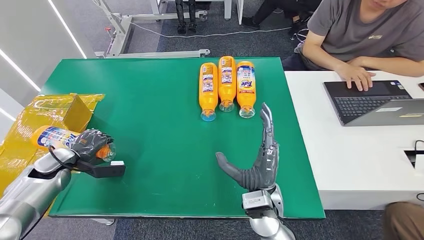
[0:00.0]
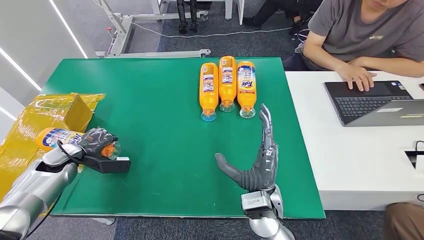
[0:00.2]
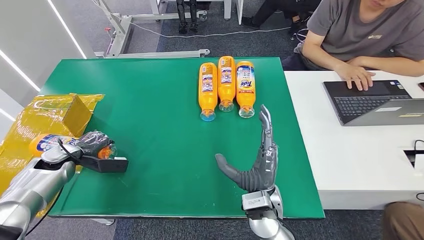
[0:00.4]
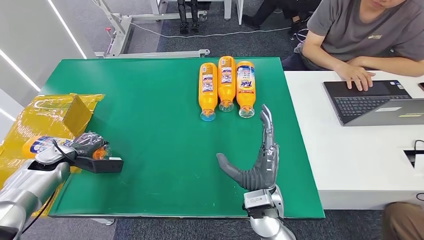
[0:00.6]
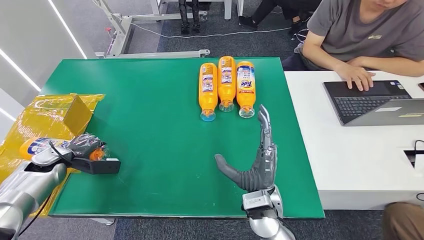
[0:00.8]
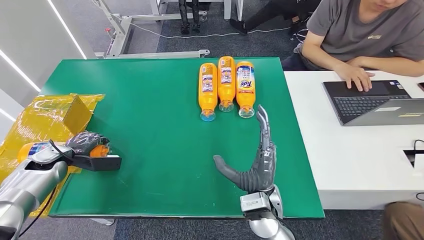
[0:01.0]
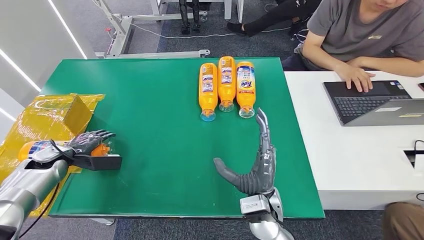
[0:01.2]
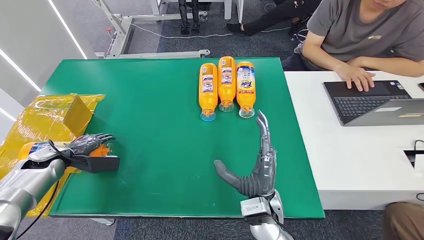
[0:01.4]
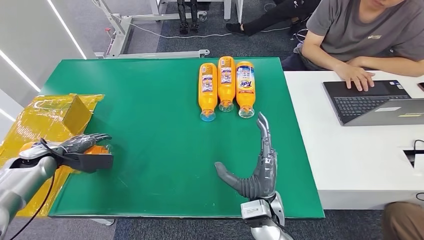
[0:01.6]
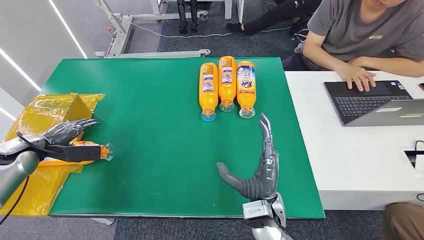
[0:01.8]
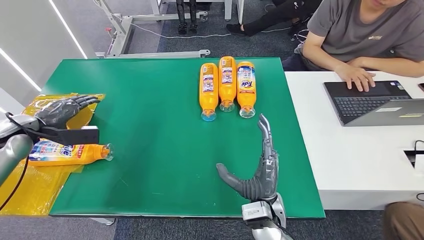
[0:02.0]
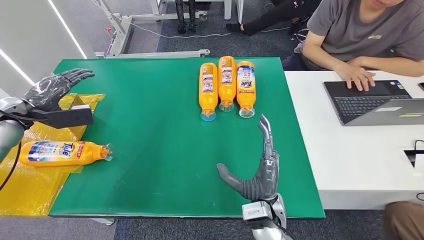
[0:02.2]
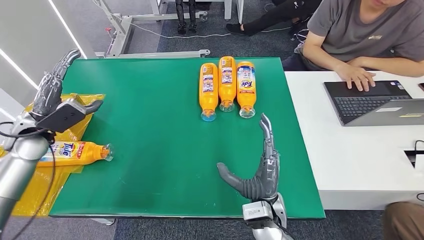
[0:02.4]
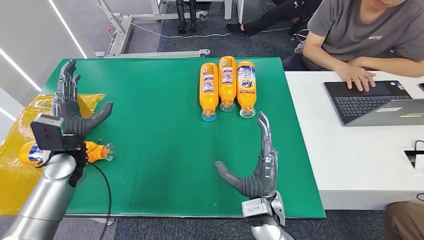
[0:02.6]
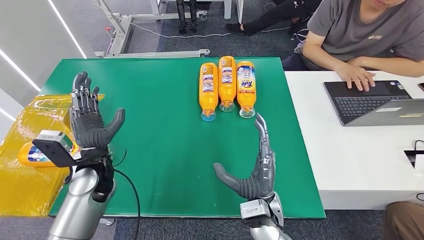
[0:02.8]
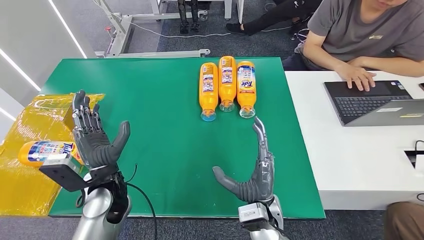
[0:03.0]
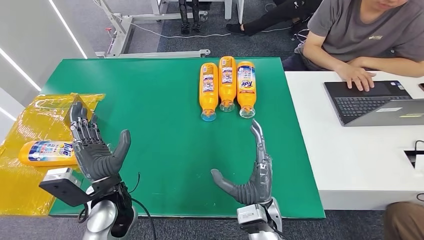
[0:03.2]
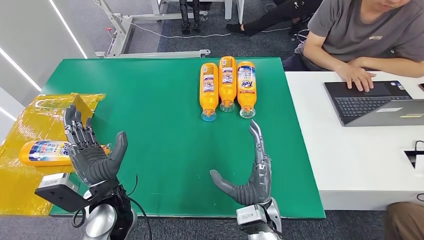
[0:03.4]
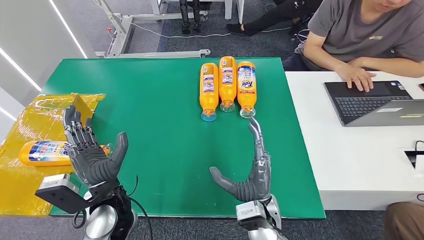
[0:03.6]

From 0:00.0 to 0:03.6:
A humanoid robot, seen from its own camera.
Step, from 0:00.0 to 0:03.6: Turn the bottle to the front side.
From 0:00.0 to 0:01.8: The left hand travels upward and to the left by some 10 cm.
From 0:01.8 to 0:03.6: The left hand moves to the right and backward, approximately 35 cm.

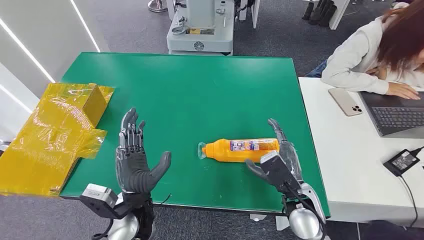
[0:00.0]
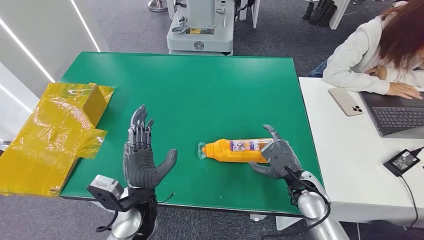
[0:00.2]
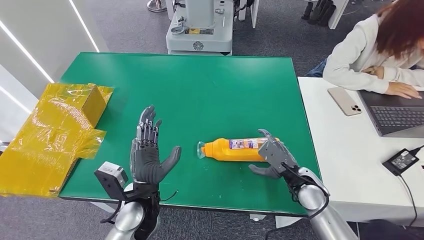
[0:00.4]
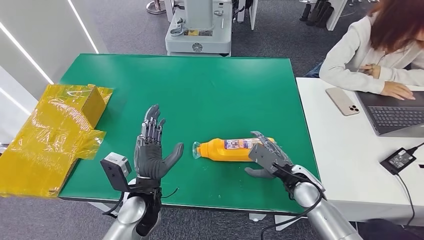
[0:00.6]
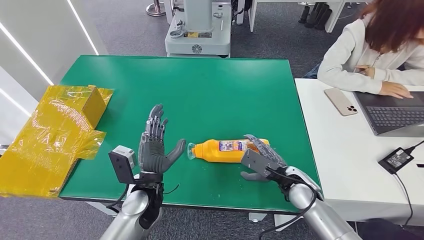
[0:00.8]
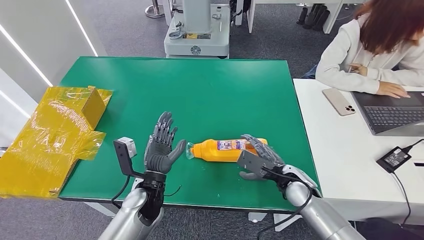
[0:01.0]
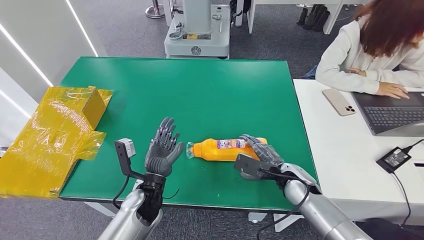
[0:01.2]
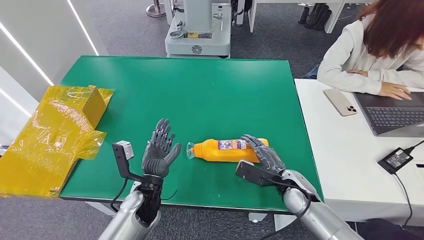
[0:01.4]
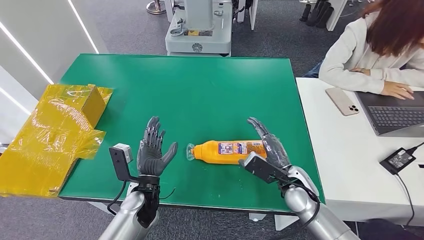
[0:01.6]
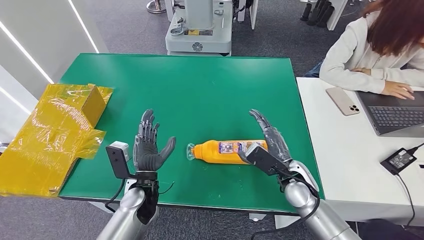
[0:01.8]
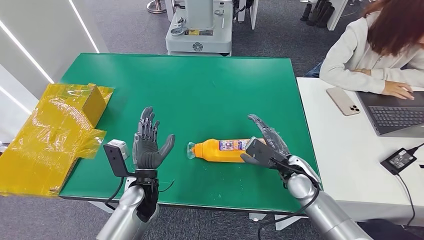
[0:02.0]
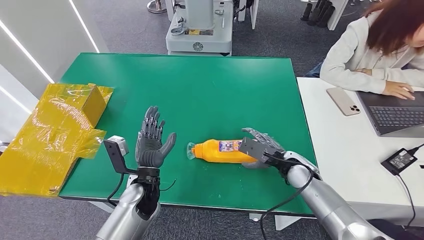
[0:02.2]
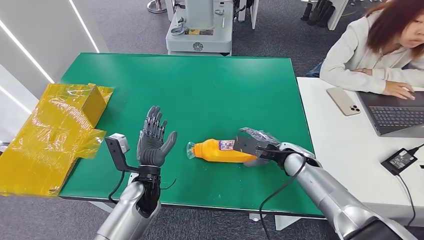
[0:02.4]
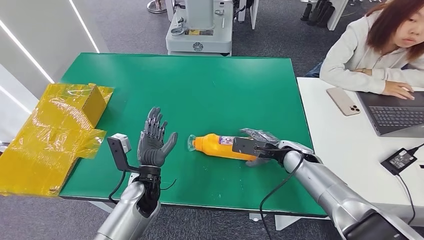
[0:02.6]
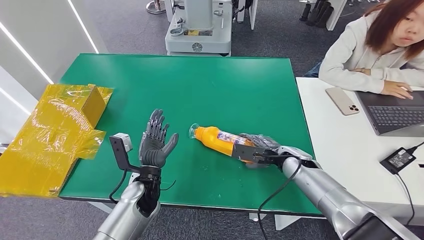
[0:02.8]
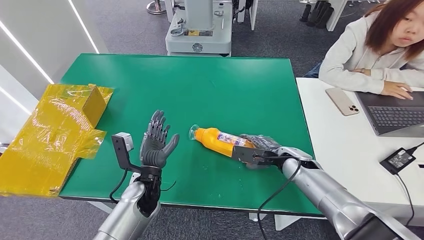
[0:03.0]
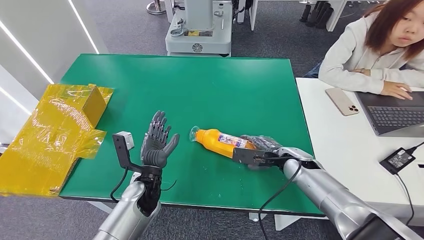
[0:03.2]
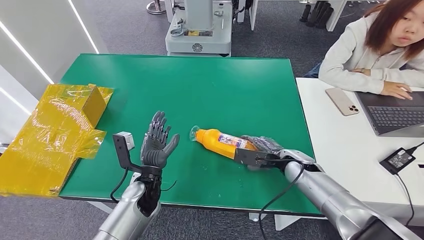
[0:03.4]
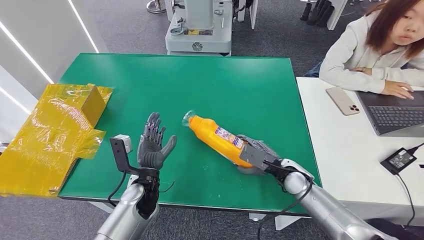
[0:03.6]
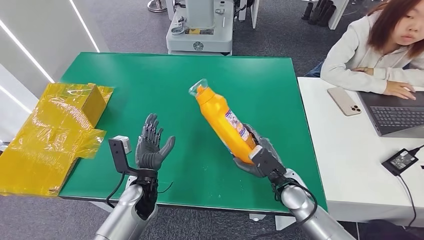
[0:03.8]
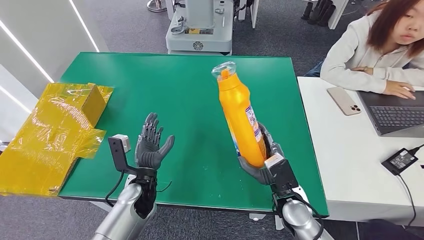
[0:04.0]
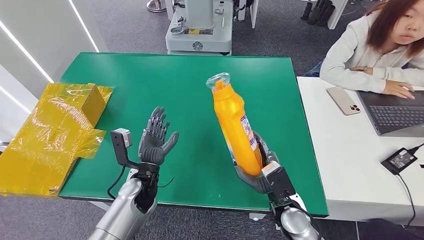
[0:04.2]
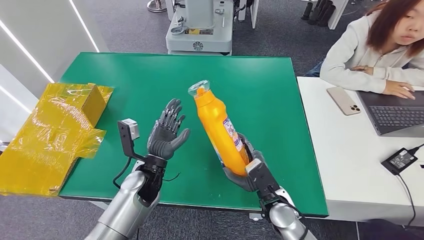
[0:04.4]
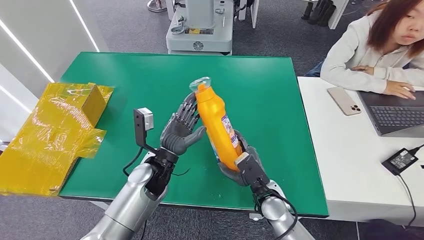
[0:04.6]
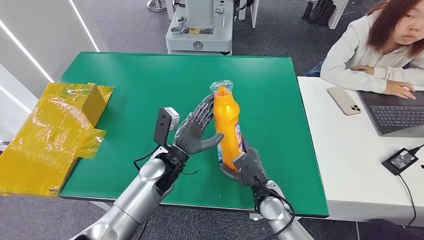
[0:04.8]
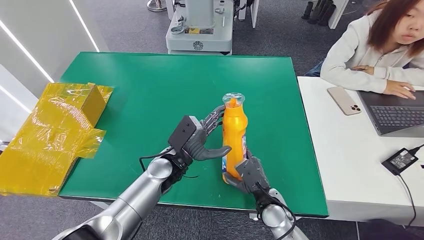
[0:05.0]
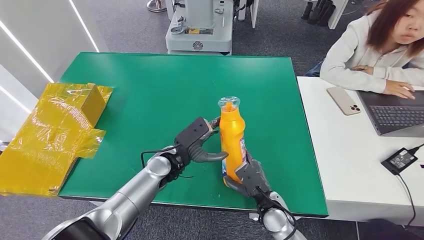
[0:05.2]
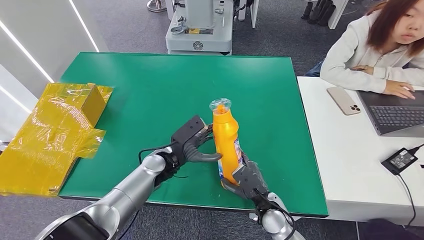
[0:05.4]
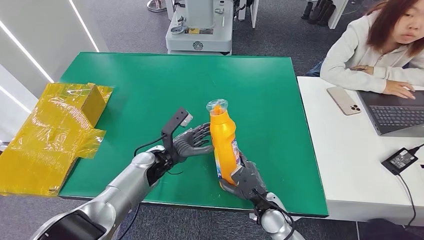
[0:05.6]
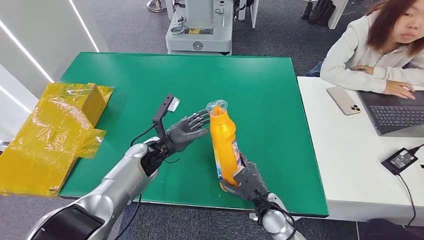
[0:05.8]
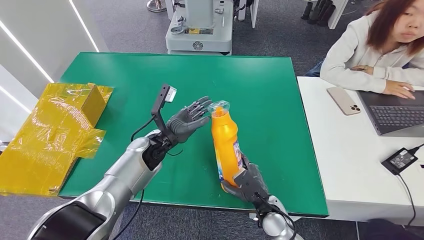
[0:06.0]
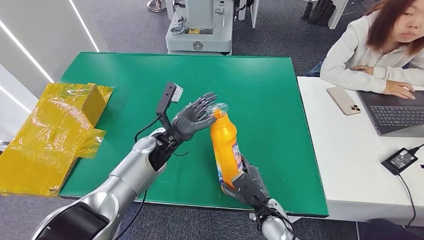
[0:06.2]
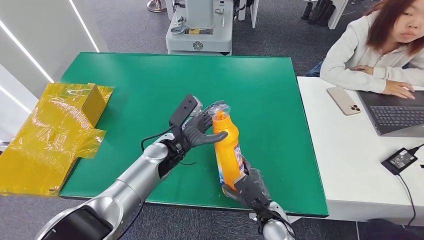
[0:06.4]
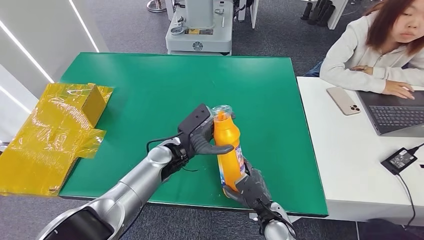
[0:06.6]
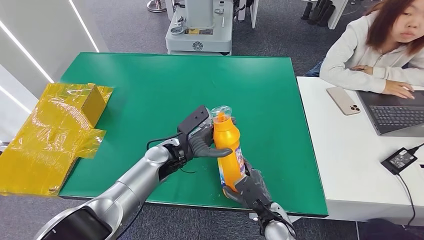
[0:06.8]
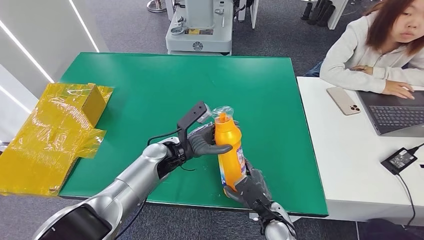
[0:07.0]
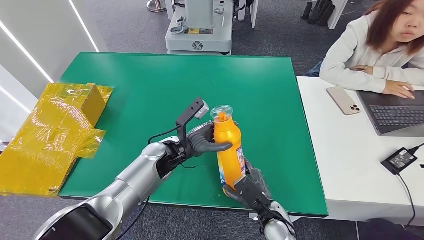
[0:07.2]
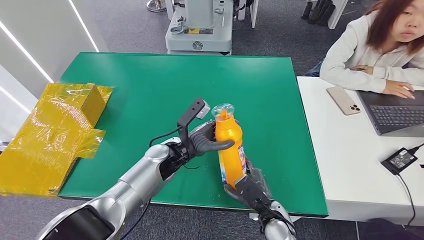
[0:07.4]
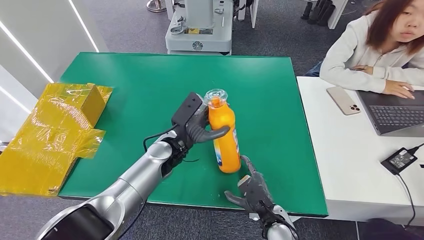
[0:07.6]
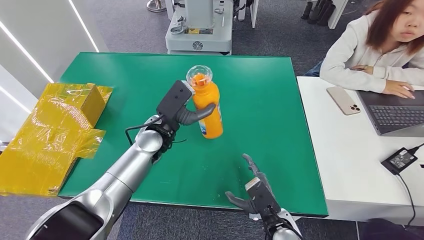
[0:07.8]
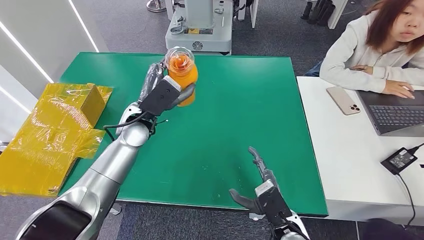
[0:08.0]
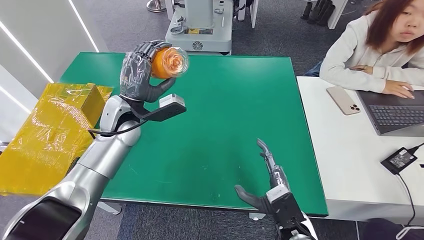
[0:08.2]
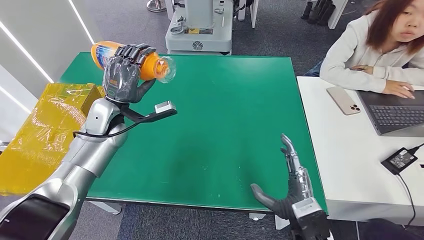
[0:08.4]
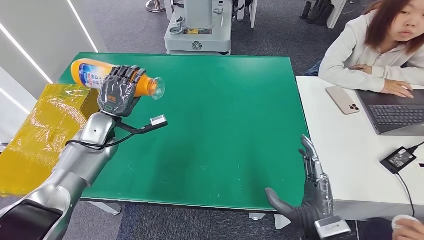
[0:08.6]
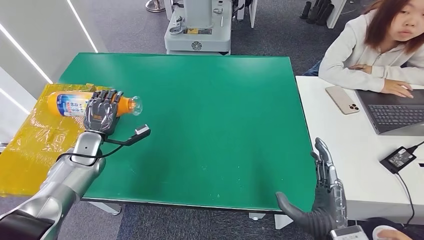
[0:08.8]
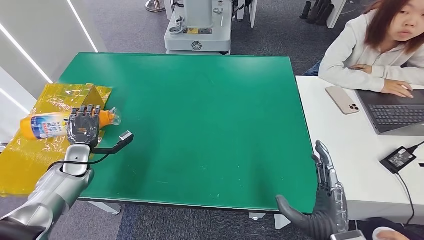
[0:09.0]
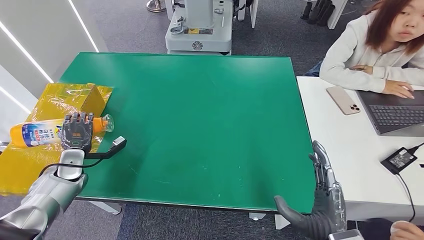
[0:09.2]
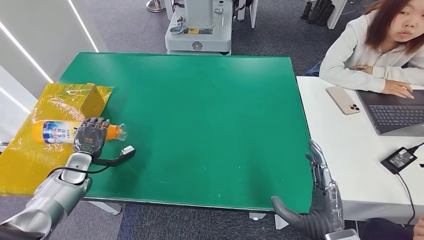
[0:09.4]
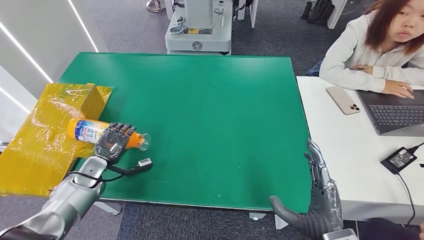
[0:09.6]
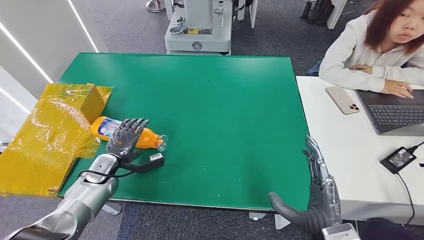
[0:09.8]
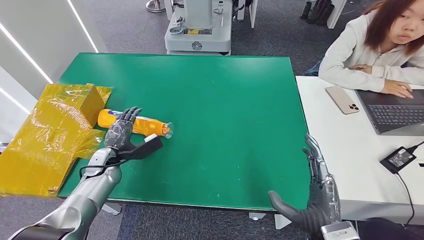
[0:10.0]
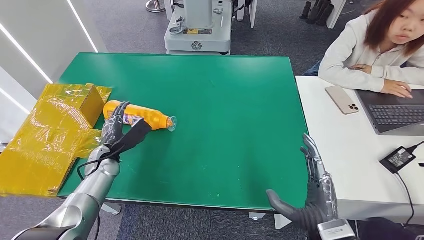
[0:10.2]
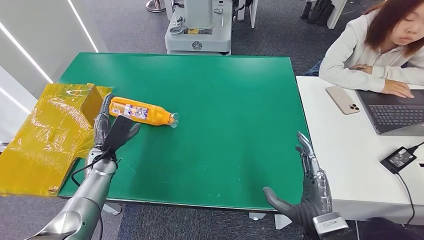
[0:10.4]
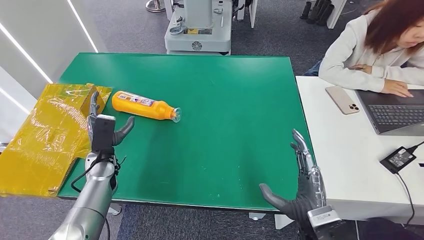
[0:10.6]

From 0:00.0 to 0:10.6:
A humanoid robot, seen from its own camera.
Step, from 0:00.0 to 0:04.2: Pick up the bottle from the table.
Step, from 0:05.8 to 0:10.6: Turn the bottle to the front side.
From 0:01.6 to 0:03.0: The right hand shifts approximately 5 cm forward.
From 0:04.6 to 0:06.0: The right hand changes place by roughly 5 cm. Meanwhile the left hand is displaced forward by approximately 5 cm.
From 0:09.0 to 0:10.6: The left hand goes approximately 10 cm to the right.
